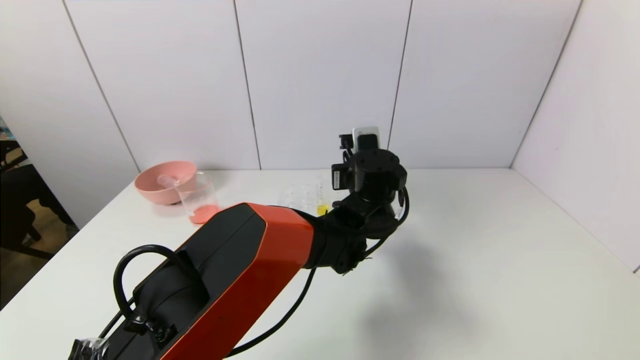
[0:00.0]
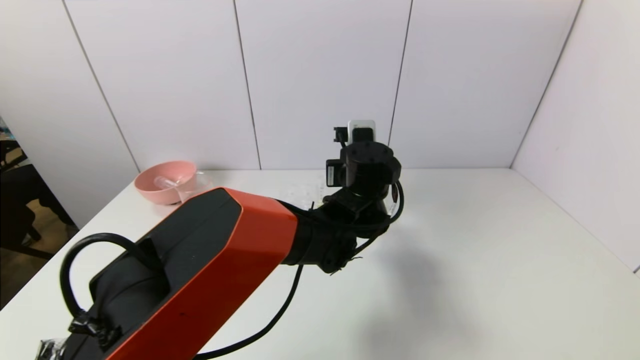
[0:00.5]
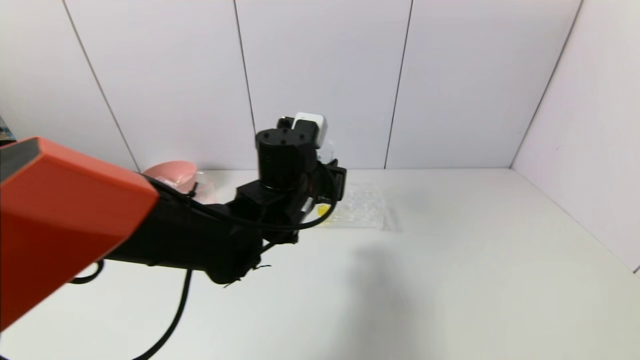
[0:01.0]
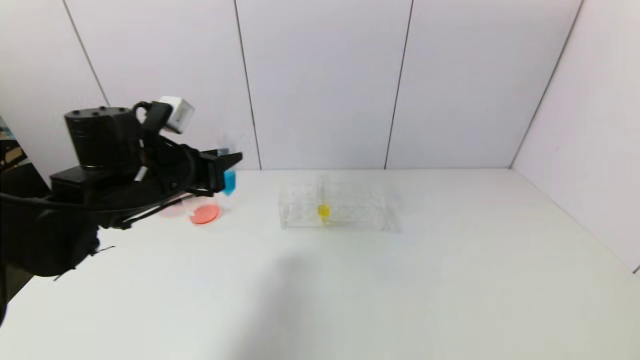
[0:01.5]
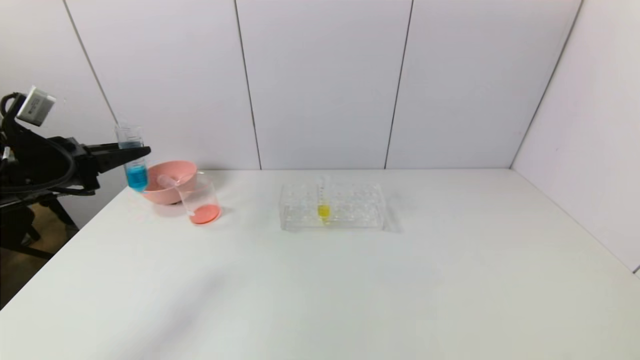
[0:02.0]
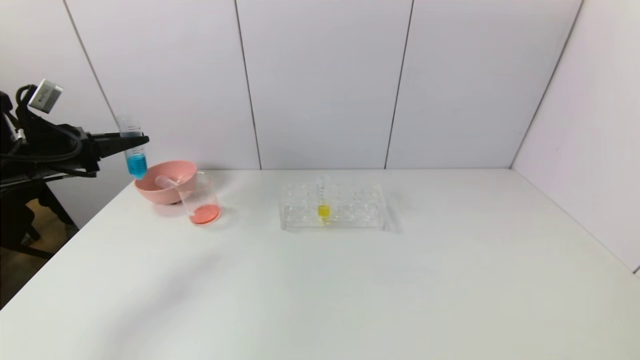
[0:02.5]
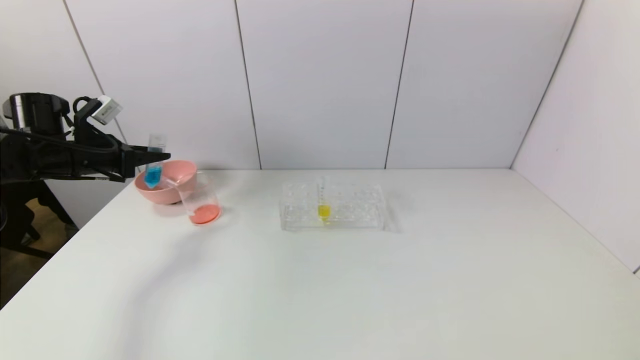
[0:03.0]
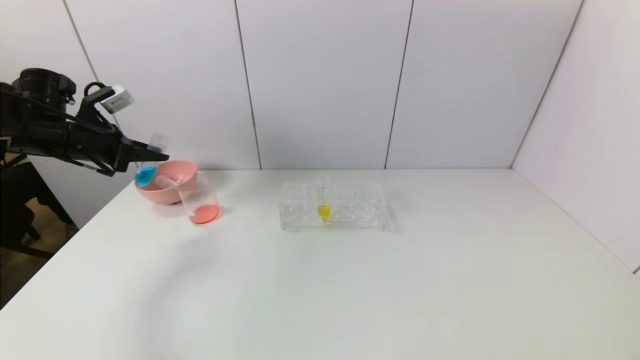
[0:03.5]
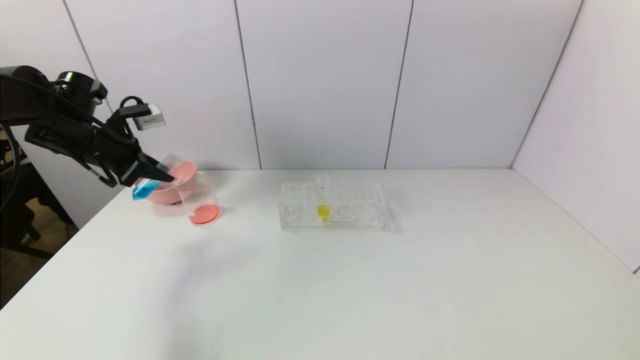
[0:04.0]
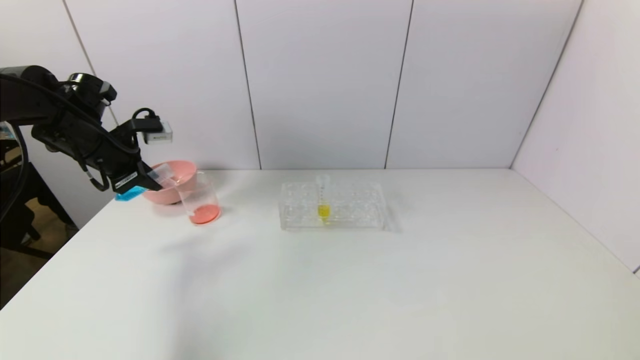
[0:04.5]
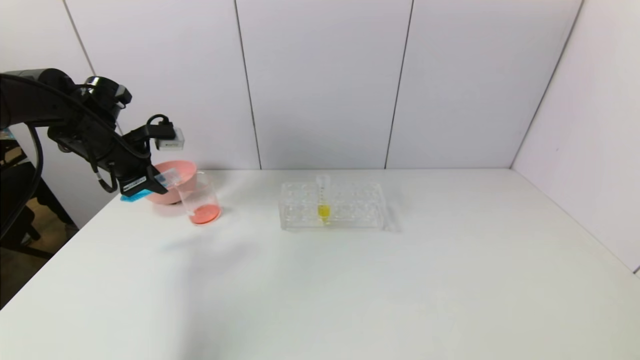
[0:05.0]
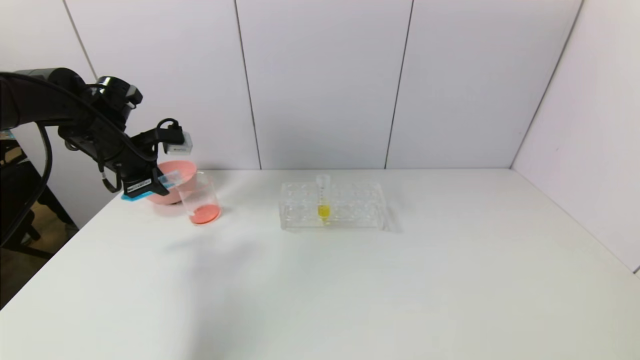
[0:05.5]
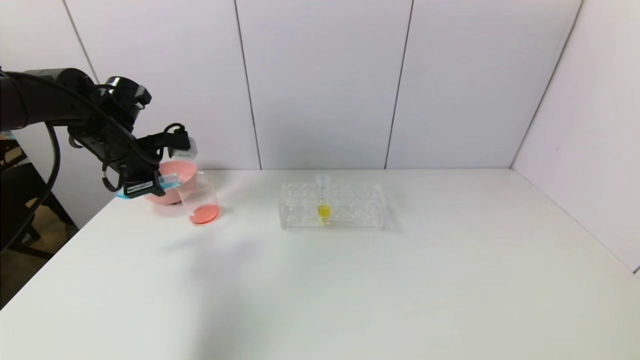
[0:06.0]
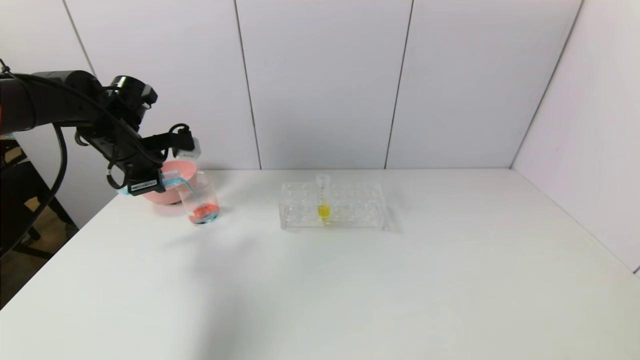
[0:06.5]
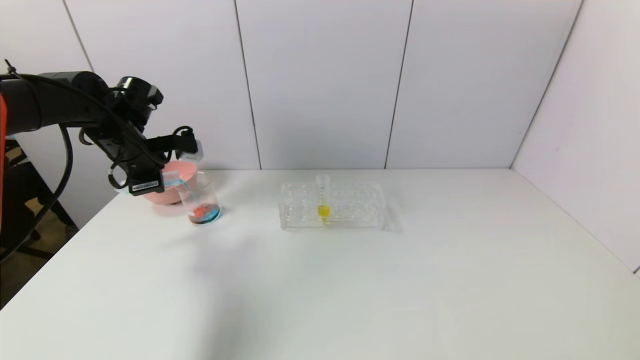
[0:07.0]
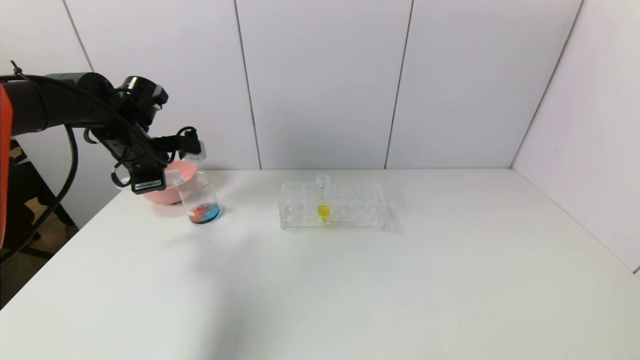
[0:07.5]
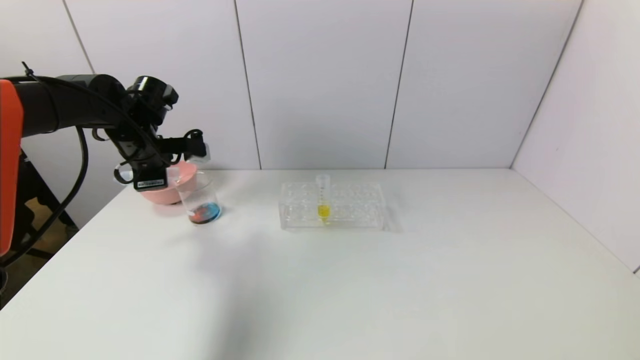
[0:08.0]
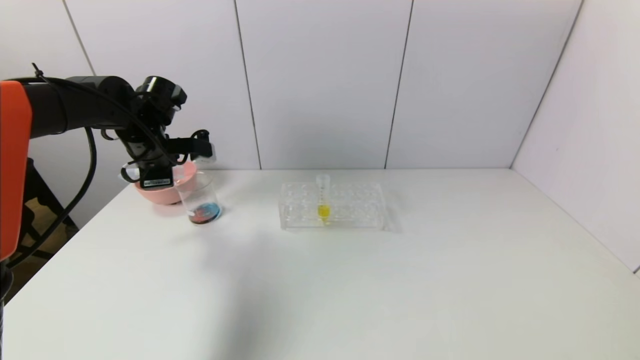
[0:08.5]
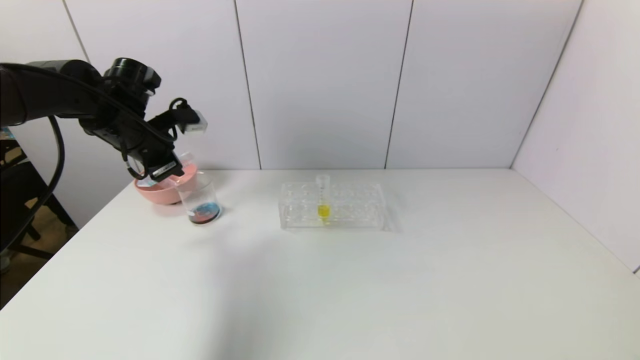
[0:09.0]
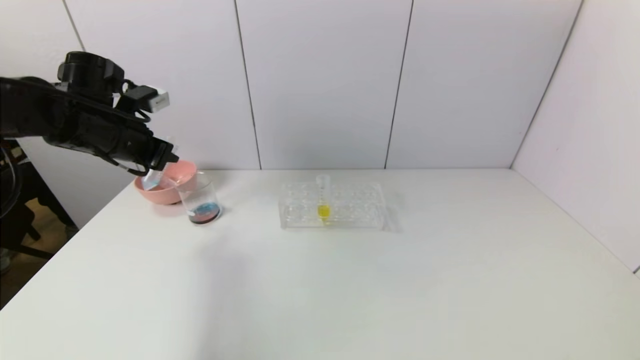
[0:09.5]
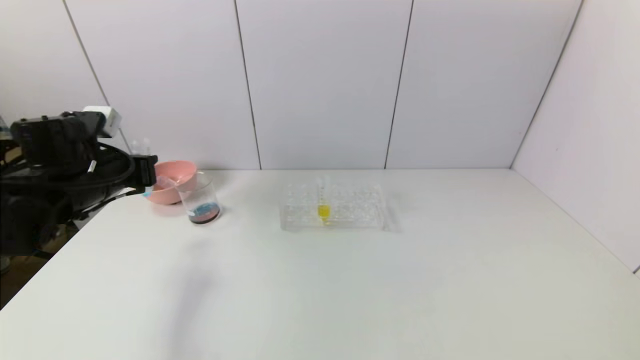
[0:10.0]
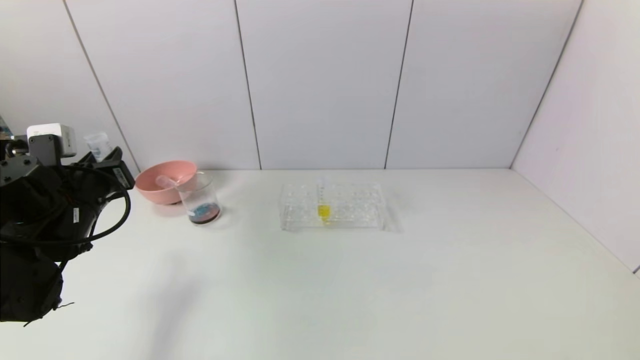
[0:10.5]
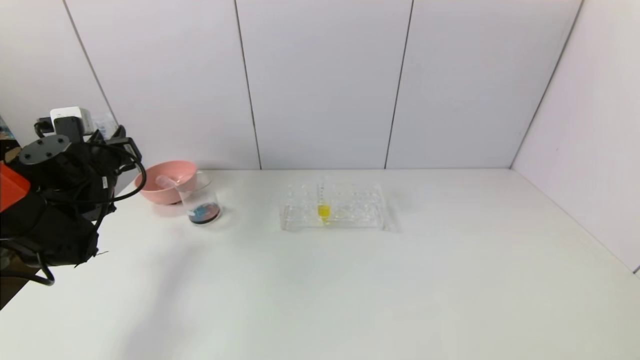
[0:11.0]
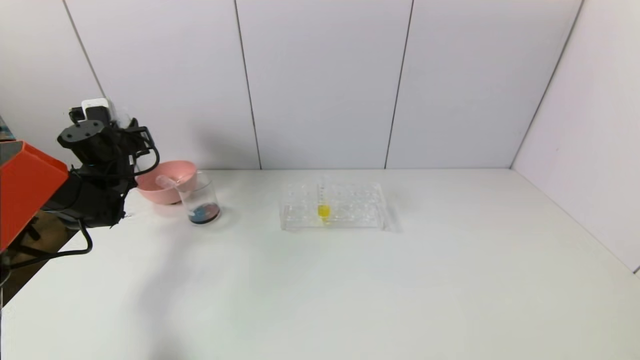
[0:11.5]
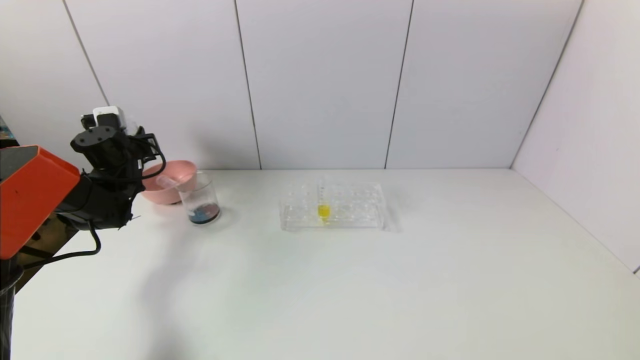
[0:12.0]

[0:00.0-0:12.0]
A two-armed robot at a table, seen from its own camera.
Task of the whole recording: pick up the test tube with red pigment and the test tube with blue pigment by grippers and pour them into the container.
Step, 0:00.0 to 0:09.0: Pour the blue reagent into the graduated cylinder with the left gripper.
0:00.0 to 0:02.0: The left gripper moves to the left, some 50 cm.
0:02.0 to 0:04.0: The left gripper is displaced forward by about 10 cm.
0:06.0 to 0:08.0: There are only small adjustments of the grippers.
0:08.0 to 0:10.0: The left gripper moves backward, some 10 cm.
0:10.0 to 0:12.0: The left gripper shifts roughly 15 cm forward.

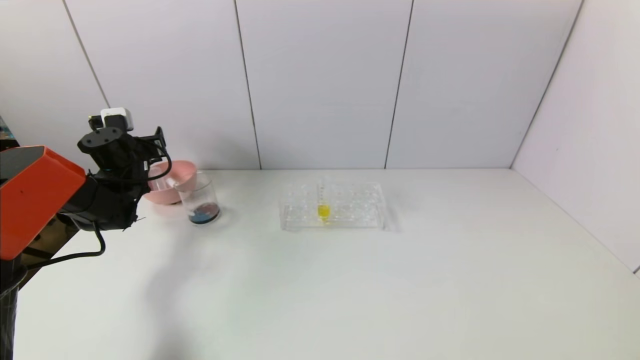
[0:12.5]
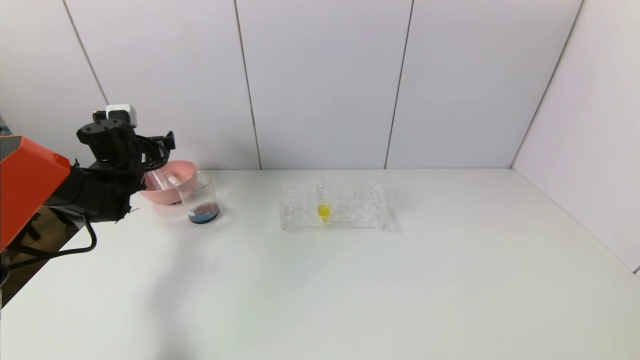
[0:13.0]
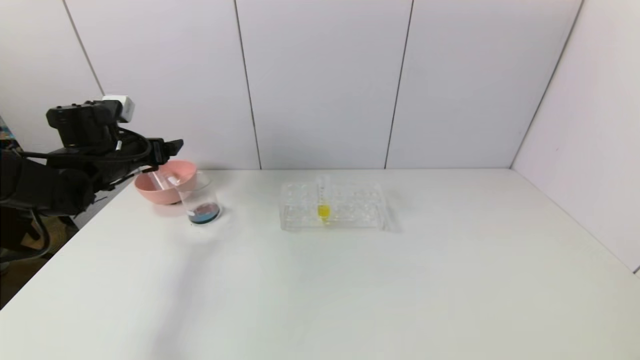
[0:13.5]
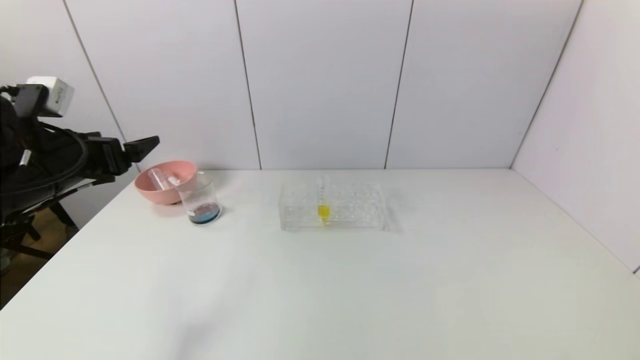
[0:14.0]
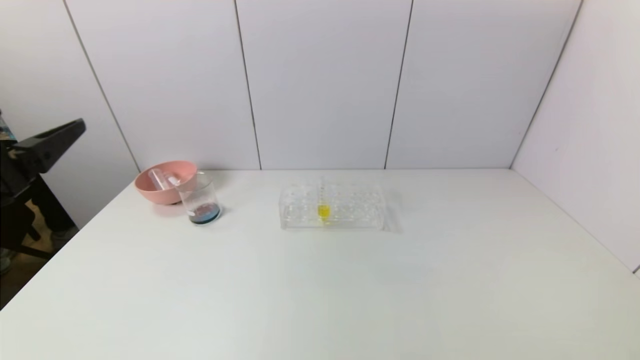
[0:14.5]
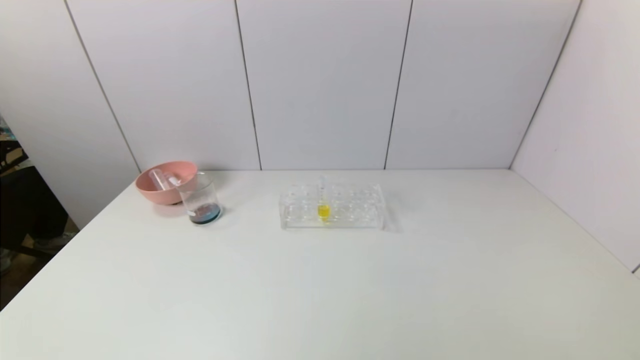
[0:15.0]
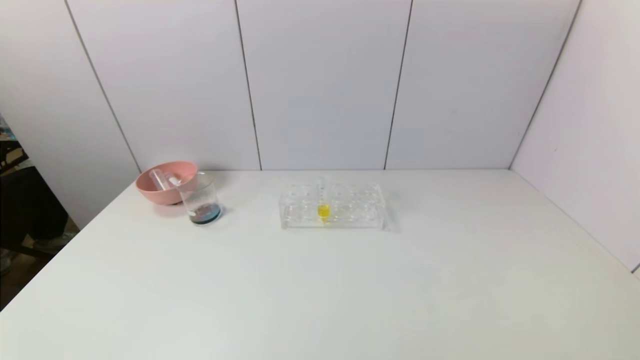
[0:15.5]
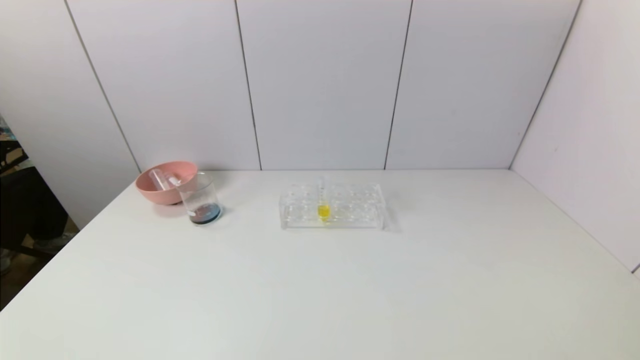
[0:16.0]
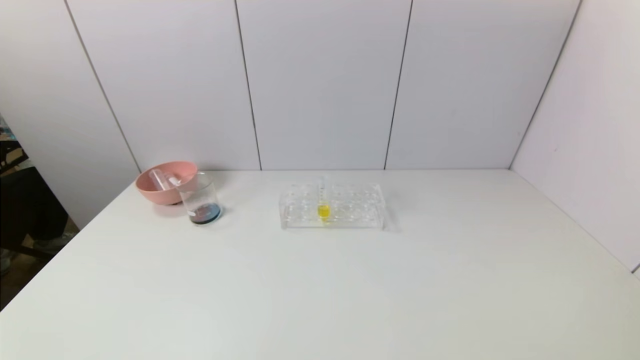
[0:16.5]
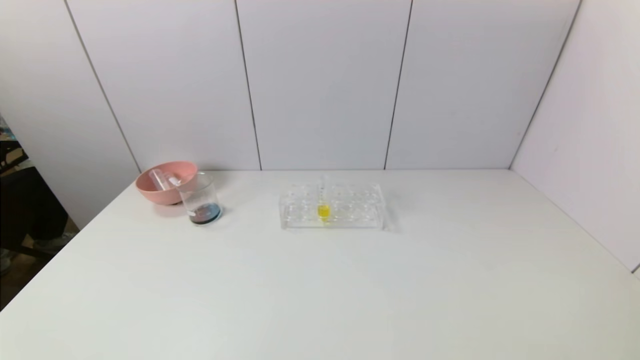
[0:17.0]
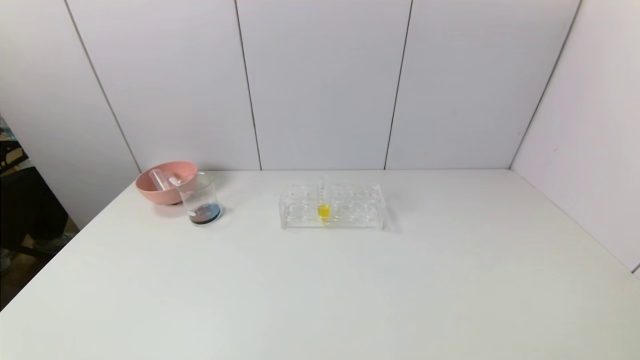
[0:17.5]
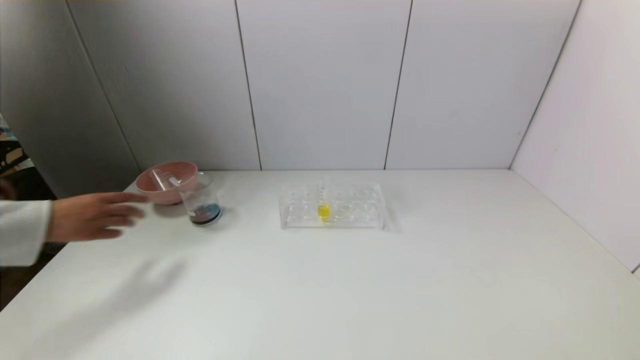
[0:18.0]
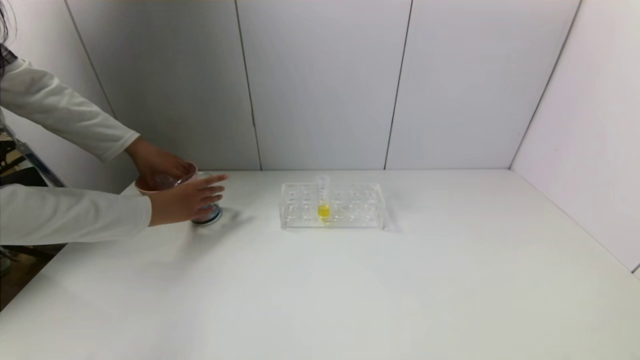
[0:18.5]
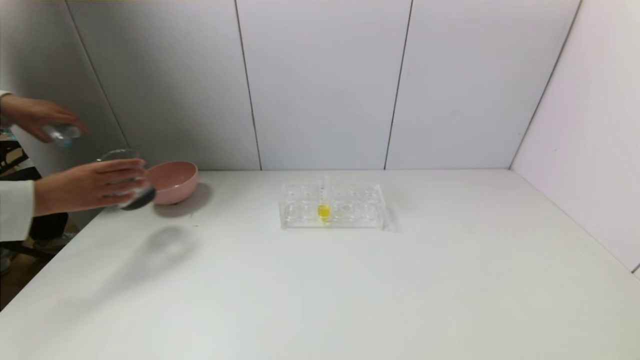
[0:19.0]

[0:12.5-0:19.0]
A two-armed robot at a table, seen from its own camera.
Task of the whole recording: pick up the test tube with red pigment and the test tube with blue pigment by grippers and pour them into the container.
0:12.5 to 0:14.5: The left gripper is displaced backward and upward by roughly 35 cm.
0:14.5 to 0:17.0: The left gripper is displaced downward and backward by some 25 cm.
